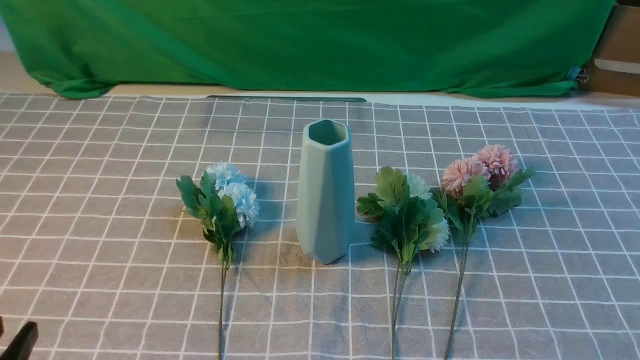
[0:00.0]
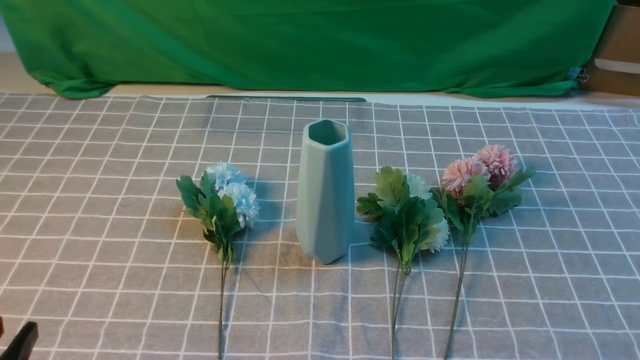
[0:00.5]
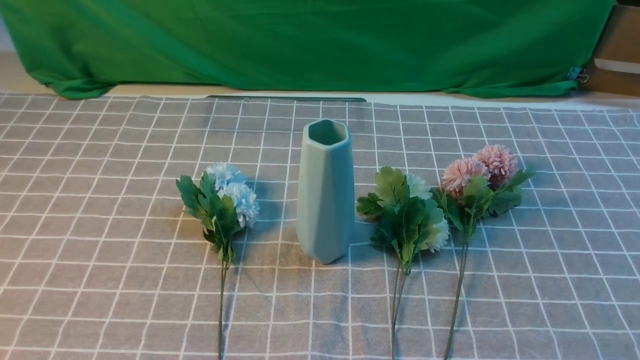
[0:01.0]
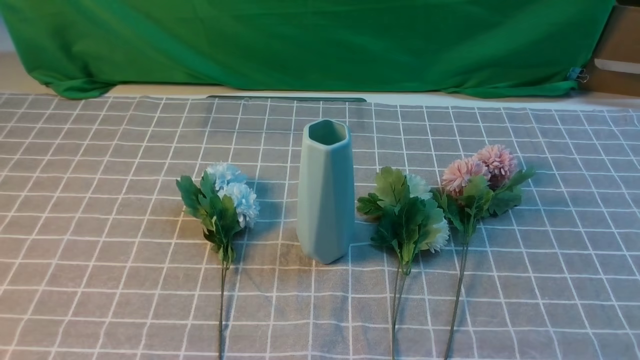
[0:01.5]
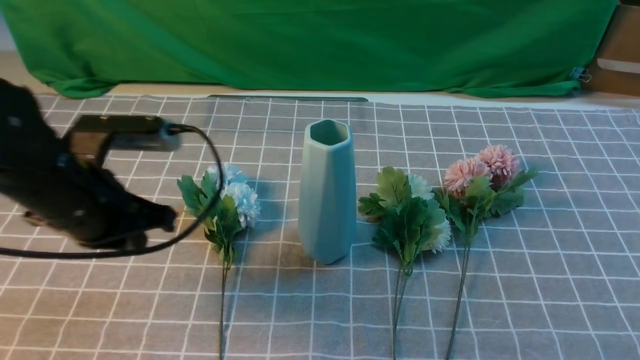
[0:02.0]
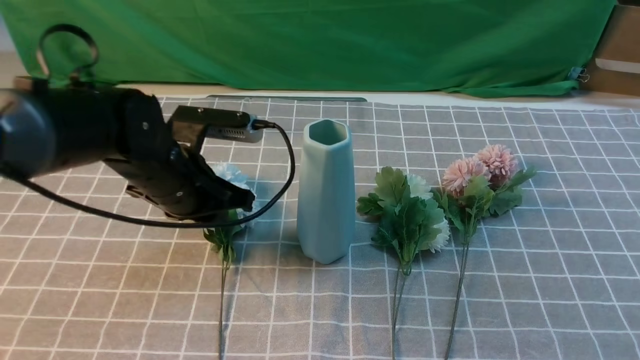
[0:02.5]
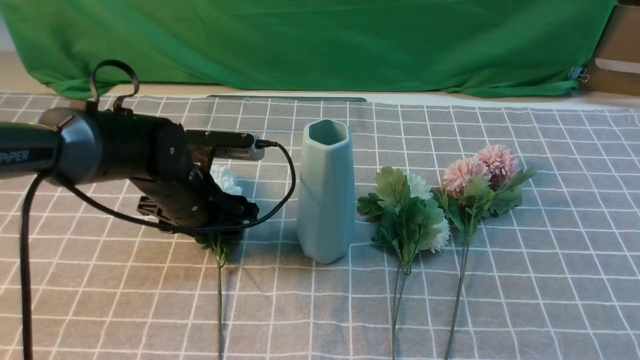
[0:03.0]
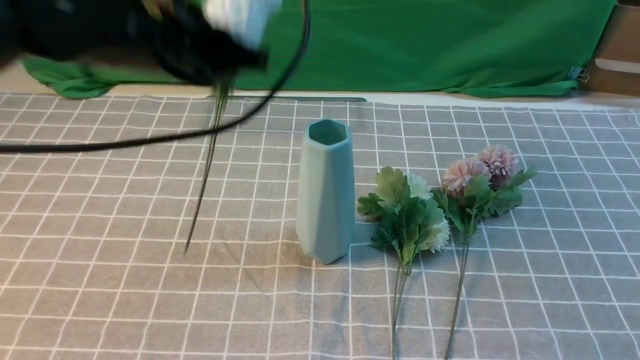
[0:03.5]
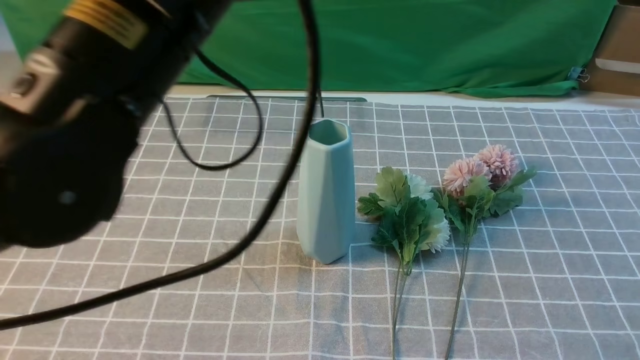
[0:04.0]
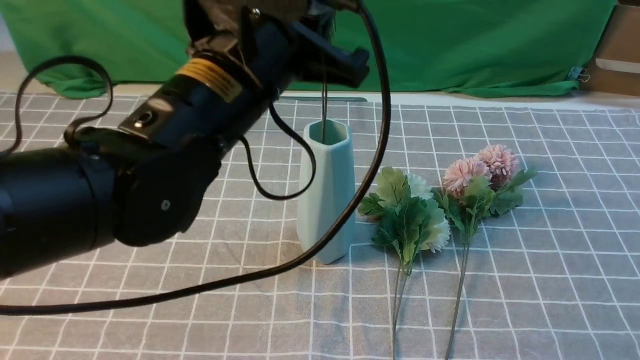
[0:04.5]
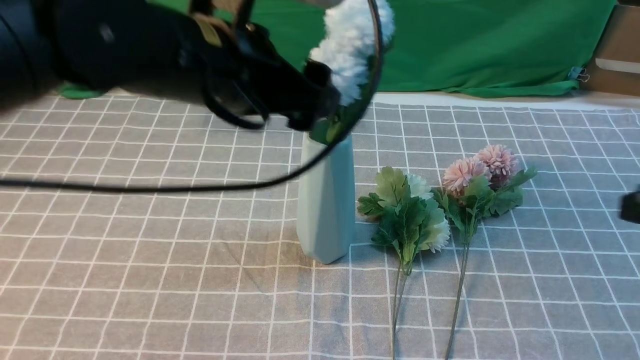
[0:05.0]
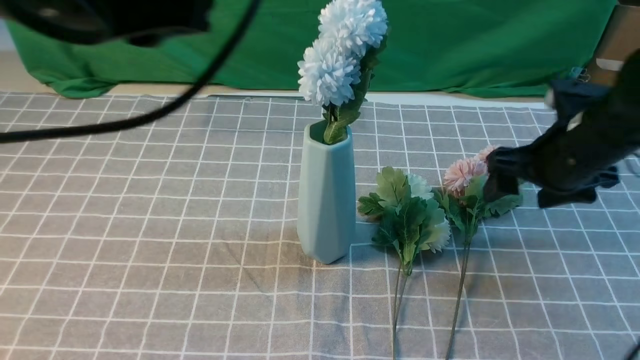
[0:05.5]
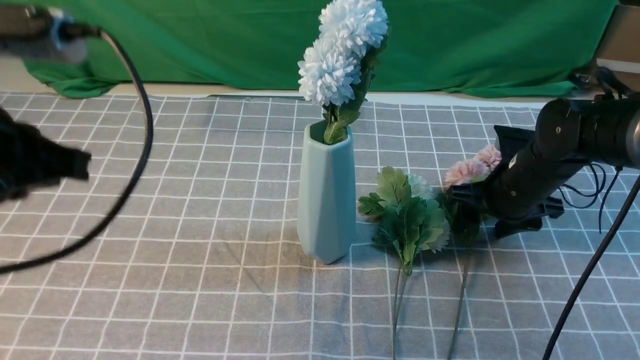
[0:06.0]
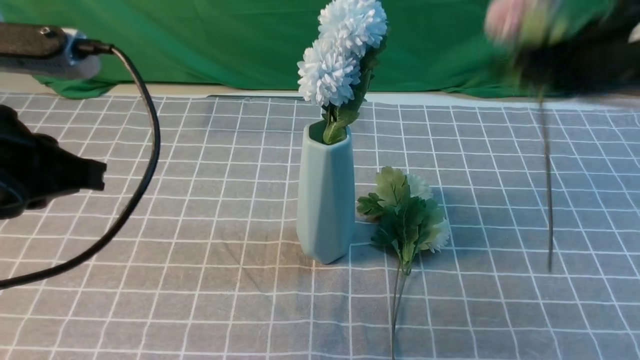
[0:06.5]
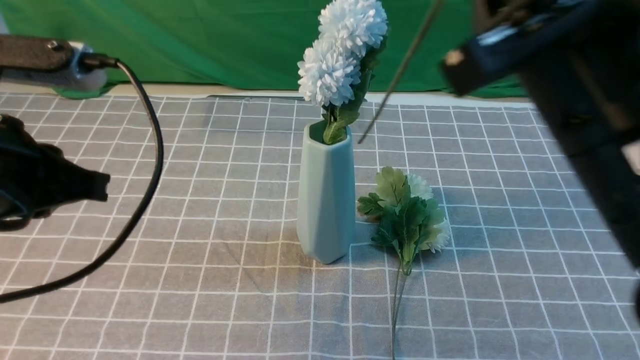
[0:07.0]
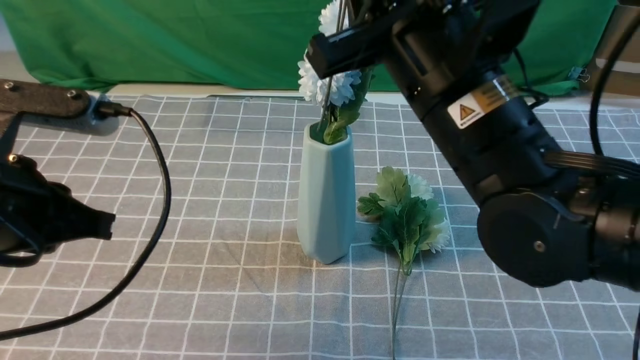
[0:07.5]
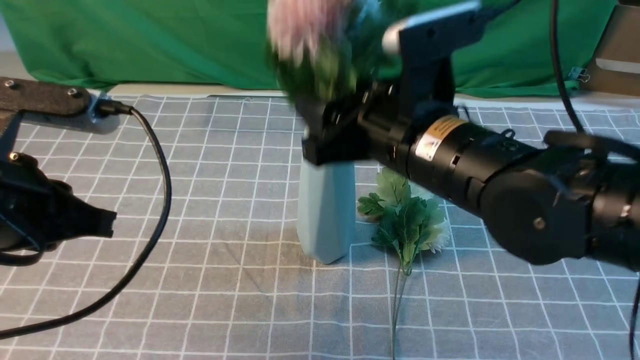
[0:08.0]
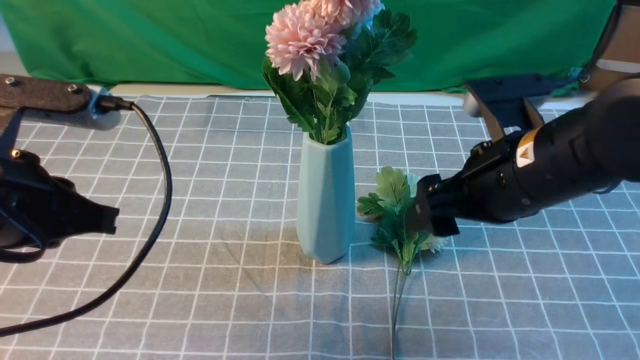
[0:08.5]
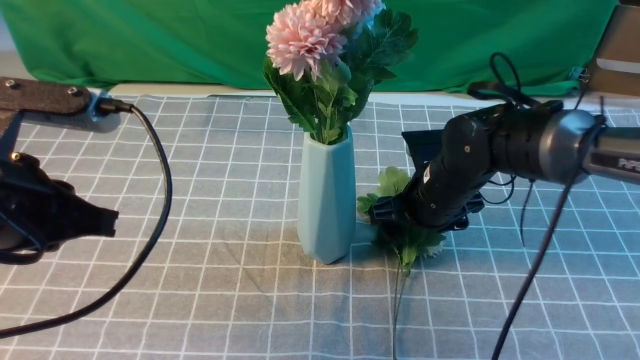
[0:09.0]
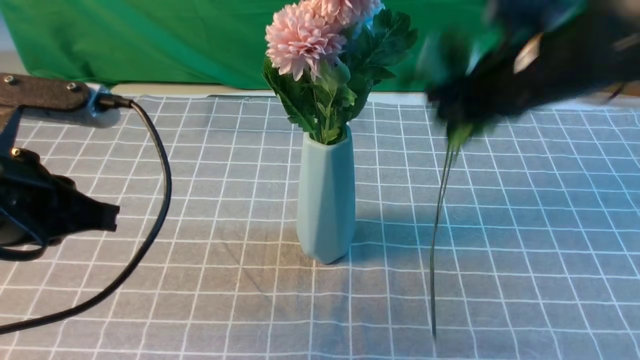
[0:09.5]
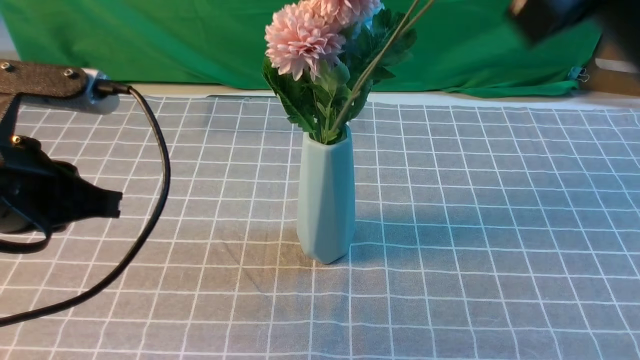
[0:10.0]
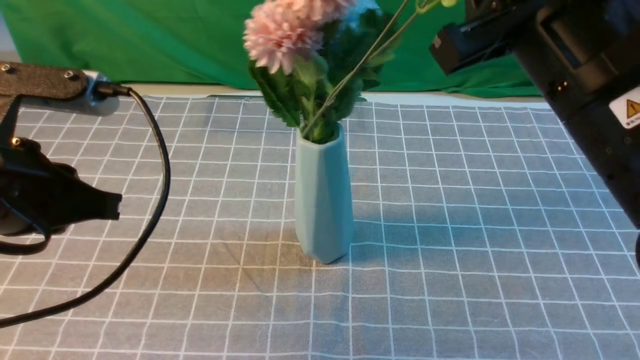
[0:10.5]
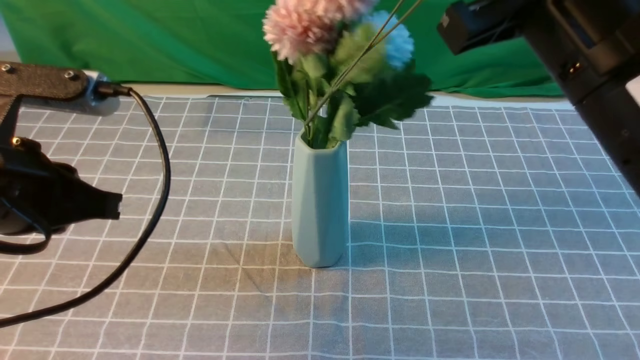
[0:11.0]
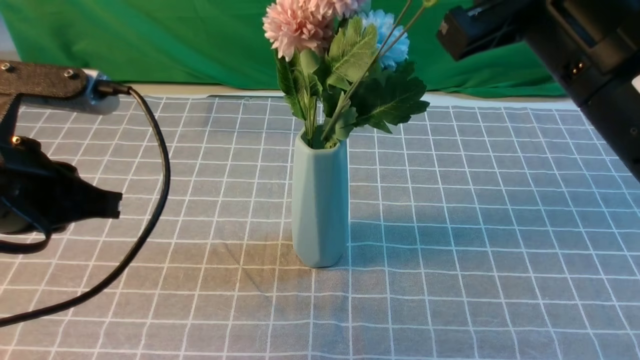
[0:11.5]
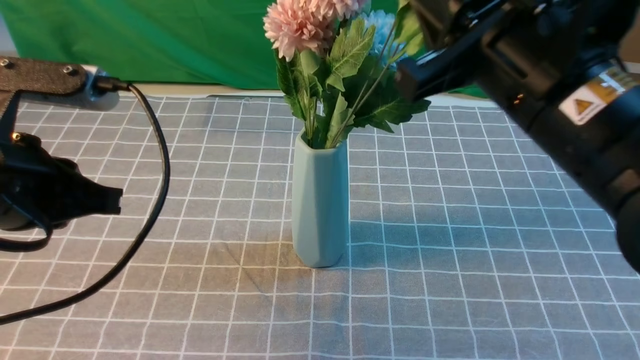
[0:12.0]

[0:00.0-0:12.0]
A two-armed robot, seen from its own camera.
Task of the whole recording: insert the flowers into the vase on the table with the grey tablecloth.
Step, 0:00.0 to 0:03.0: use the left arm to grab a bunch of fresh flowers.
Step, 0:03.5 to 0:05.0: use the left arm to insert the flowers into the vase.
Step, 0:05.5 to 0:06.0: use the right arm to grab a bunch of fresh flowers.
Step, 0:06.5 to 0:08.0: use the right arm to insert the flowers into the vase.
Step, 0:08.5 to 0:09.0: use the right arm to grab a bunch of fresh flowers.
0:00.0 to 0:02.0: The left gripper travels forward by some 25 cm, and closes.
0:02.0 to 0:04.0: The right gripper goes approximately 10 cm upward and forward. Meanwhile the left gripper is displaced upward and to the right by about 20 cm, and opens, then closes once more.
0:04.0 to 0:06.0: The right gripper goes approximately 30 cm forward and downward, and opens its fingers, while the left gripper travels to the left by approximately 15 cm, and opens and closes again.
0:06.0 to 0:08.0: The right gripper travels to the left, upward and backward by approximately 25 cm, and closes, then reopens, while the left gripper changes place by some 5 cm.
0:08.0 to 0:10.0: The right gripper is displaced upward, to the right and backward by about 15 cm, and closes up.
0:10.0 to 0:12.0: The right gripper moves downward, approximately 5 cm.

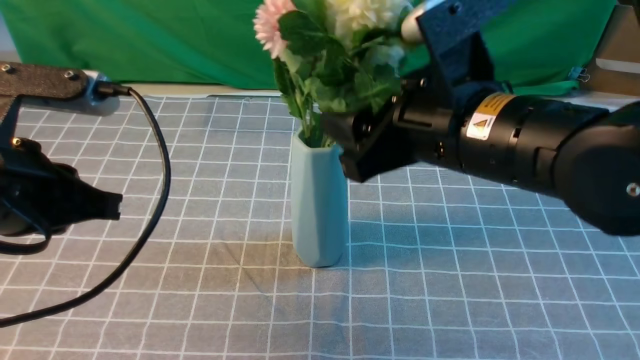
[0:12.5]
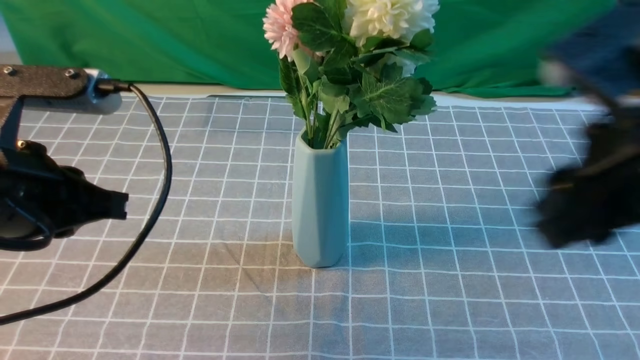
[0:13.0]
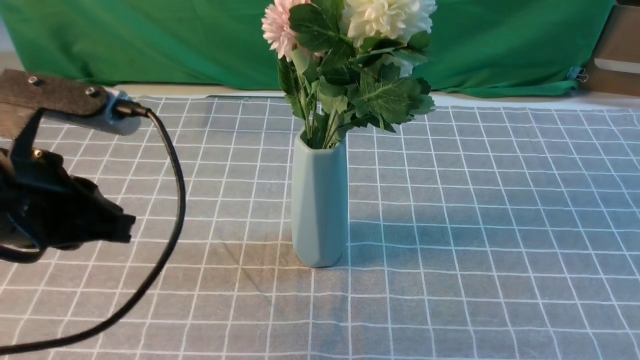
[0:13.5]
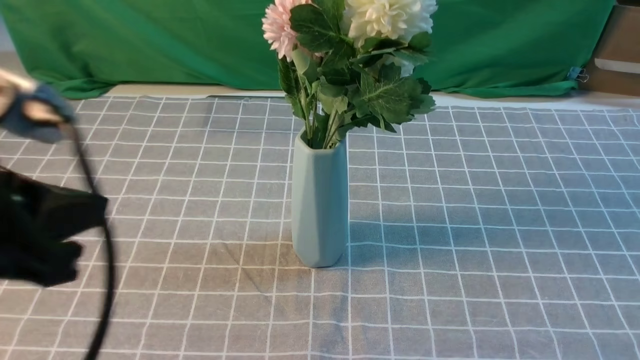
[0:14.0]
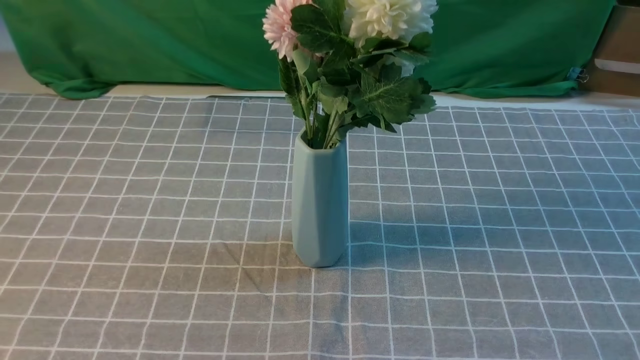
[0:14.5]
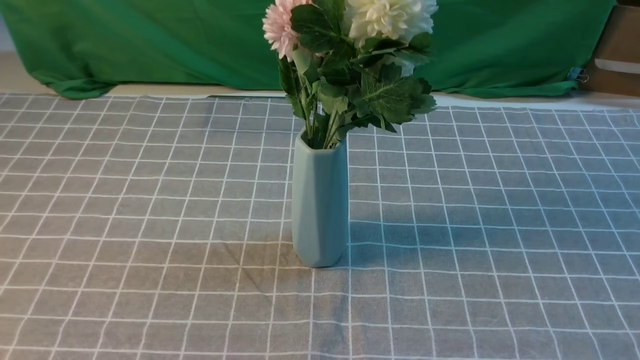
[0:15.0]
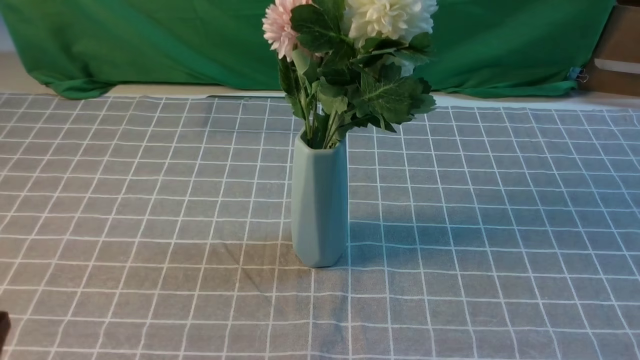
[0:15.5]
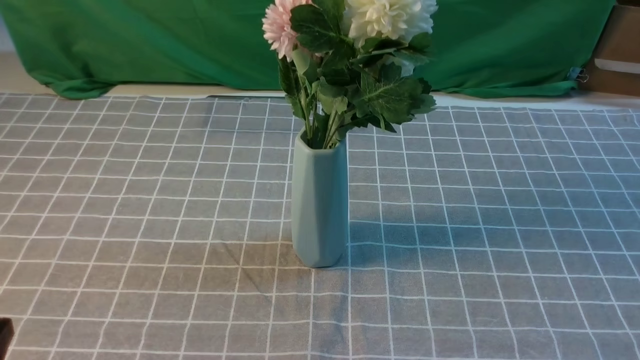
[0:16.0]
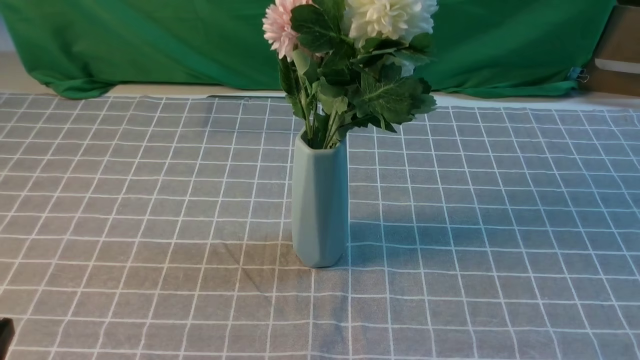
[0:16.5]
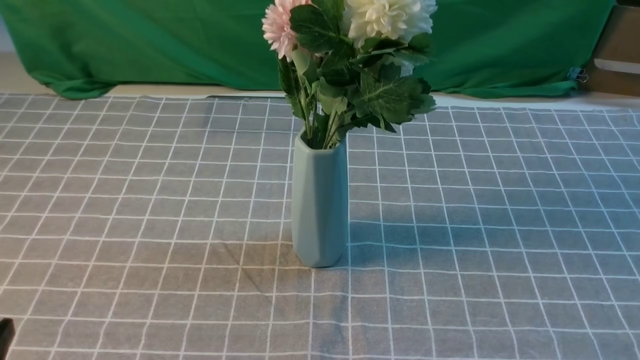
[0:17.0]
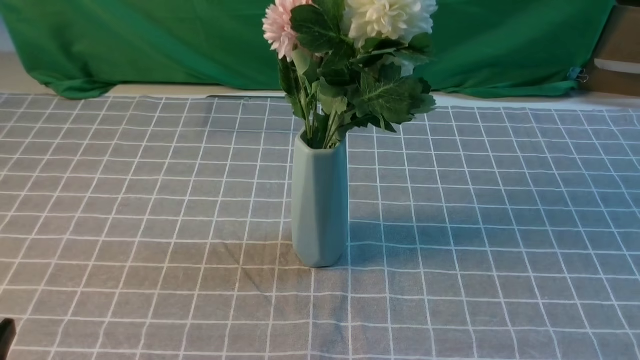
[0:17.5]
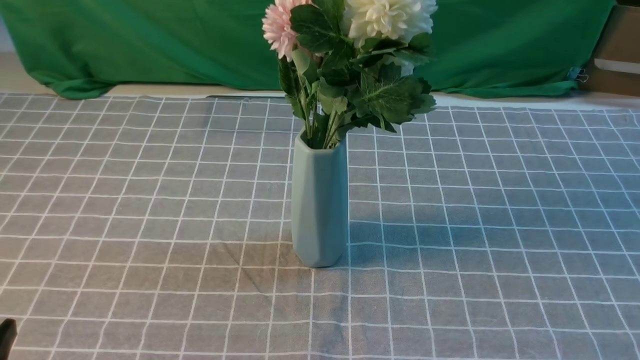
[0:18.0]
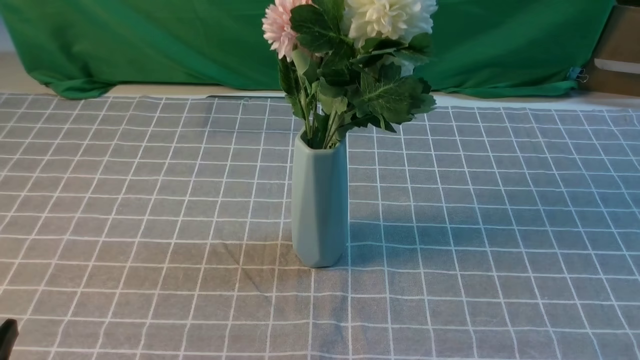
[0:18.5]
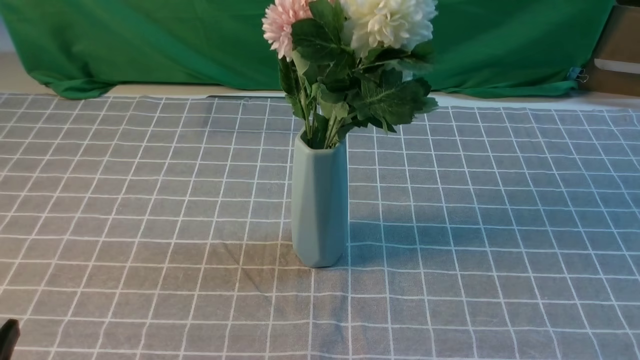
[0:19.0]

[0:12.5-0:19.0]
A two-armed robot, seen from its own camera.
Task of the whole recording: insert the flowers into the vase on the table with the grey tablecloth.
0:12.5 to 0:14.5: The left gripper goes approximately 20 cm backward, while the right gripper shifts approximately 30 cm backward and to the right, and closes.
0:17.0 to 0:19.0: The right gripper is displaced downward by approximately 10 cm.
